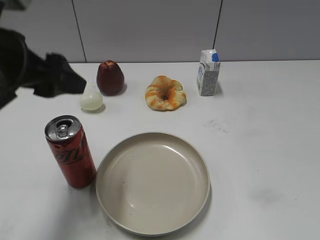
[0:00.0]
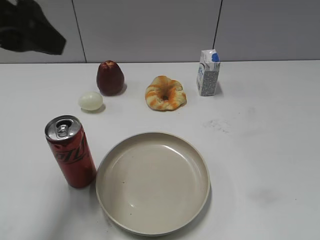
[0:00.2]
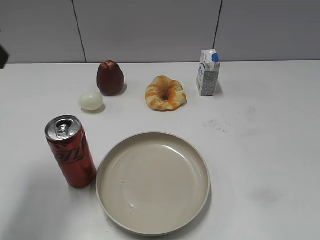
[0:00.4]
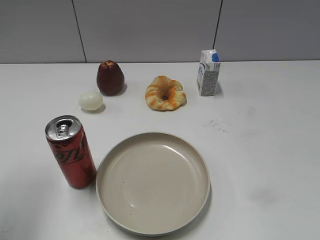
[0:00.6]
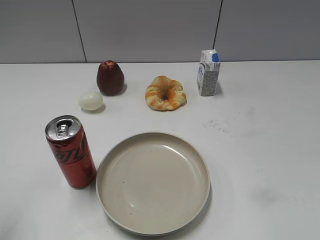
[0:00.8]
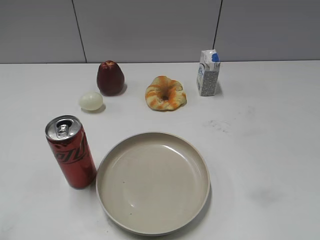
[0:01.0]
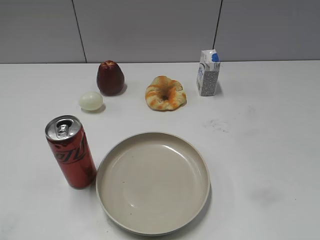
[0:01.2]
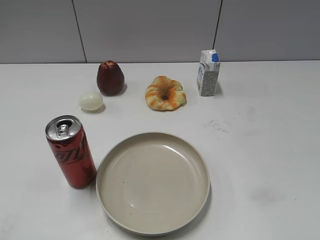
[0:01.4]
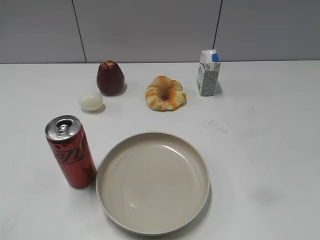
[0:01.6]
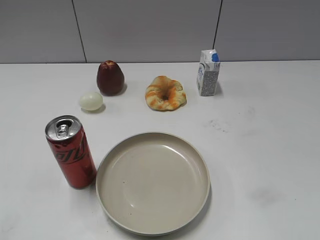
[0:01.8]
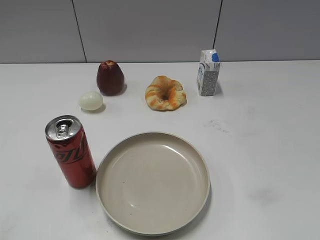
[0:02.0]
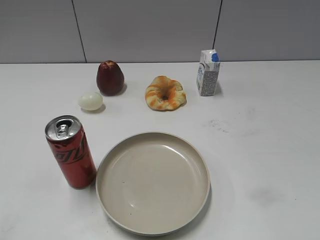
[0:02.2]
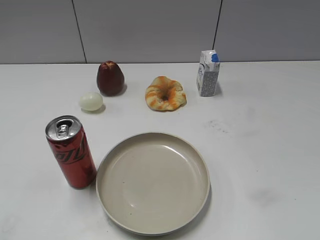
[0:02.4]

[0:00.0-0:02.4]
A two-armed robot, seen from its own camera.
0:00.0 to 0:01.2: The left gripper goes about 25 cm backward and to the left, and closes its fingers.
